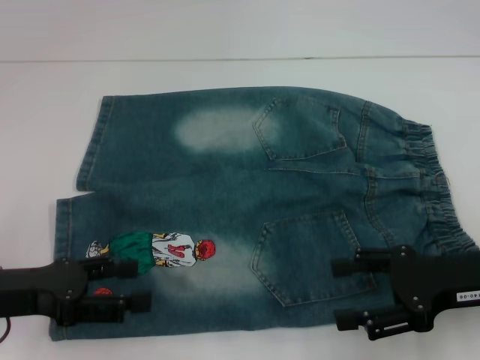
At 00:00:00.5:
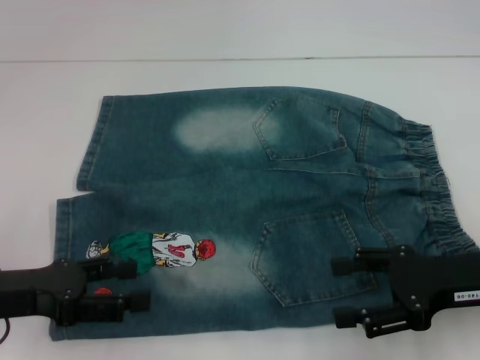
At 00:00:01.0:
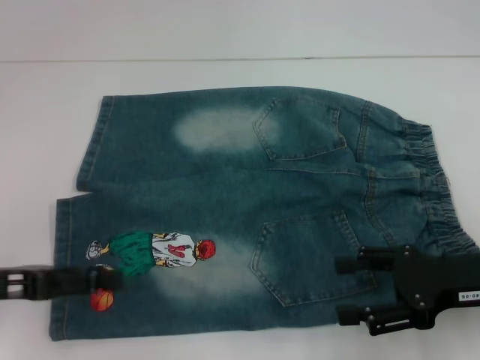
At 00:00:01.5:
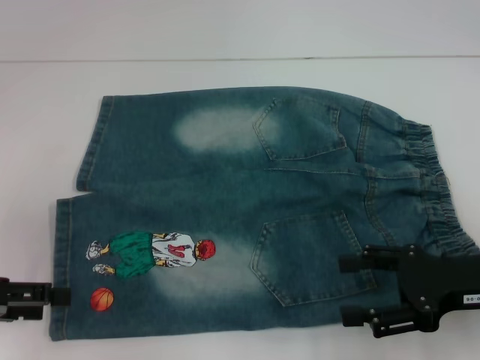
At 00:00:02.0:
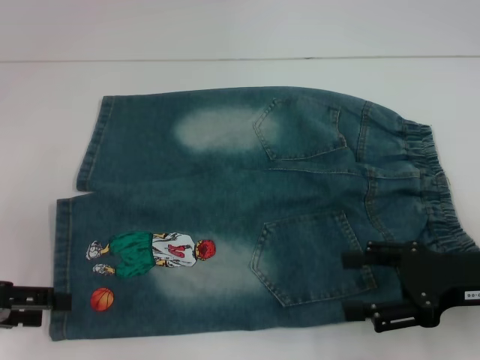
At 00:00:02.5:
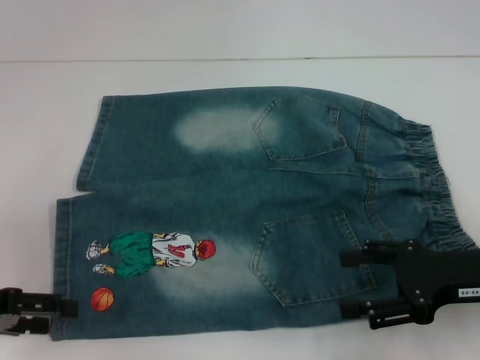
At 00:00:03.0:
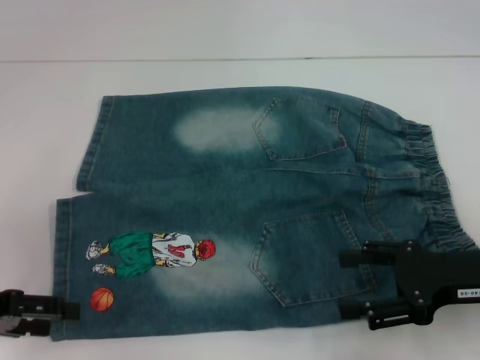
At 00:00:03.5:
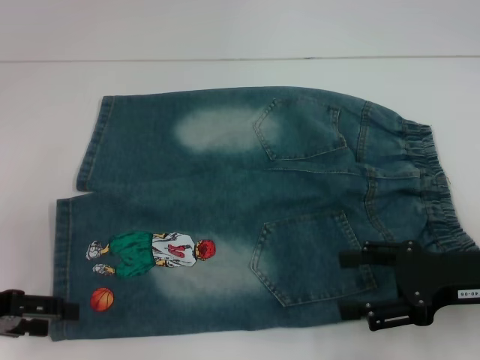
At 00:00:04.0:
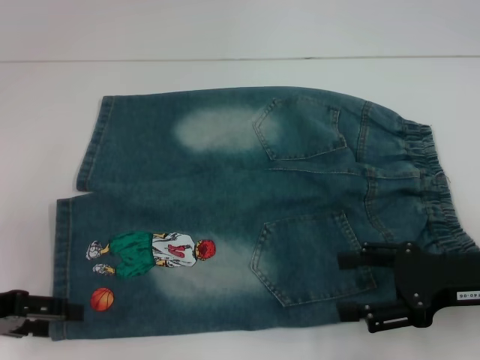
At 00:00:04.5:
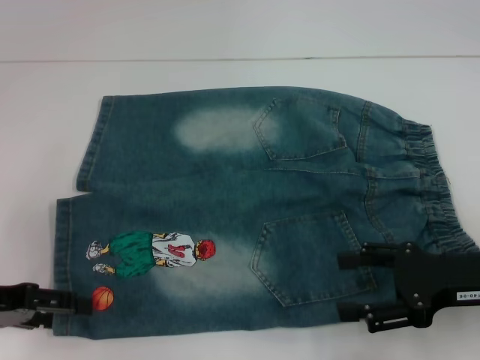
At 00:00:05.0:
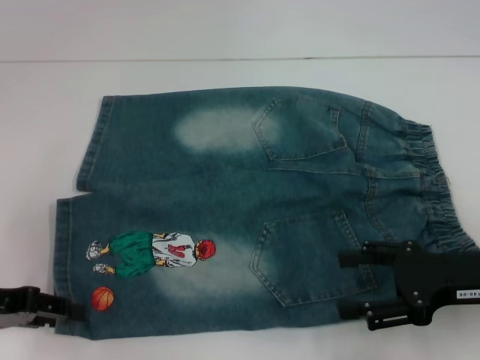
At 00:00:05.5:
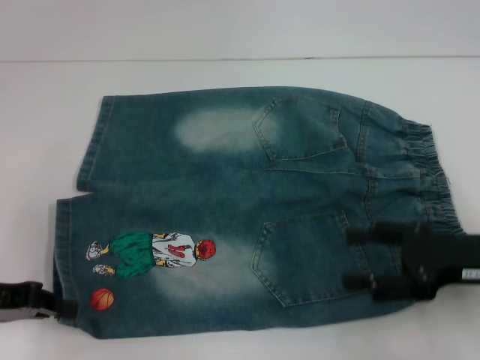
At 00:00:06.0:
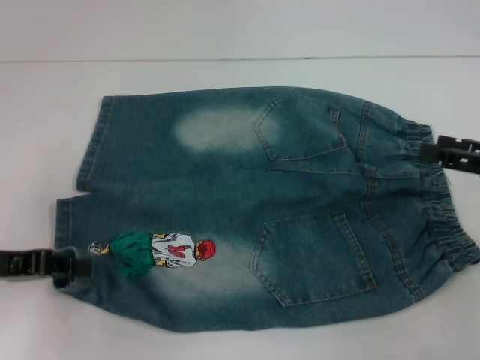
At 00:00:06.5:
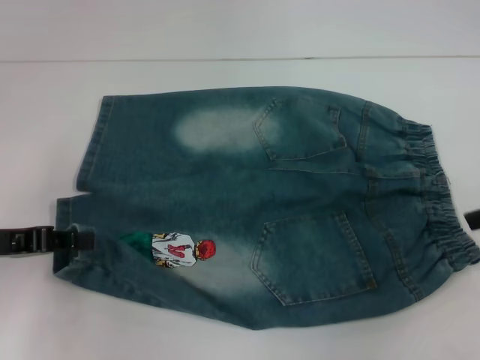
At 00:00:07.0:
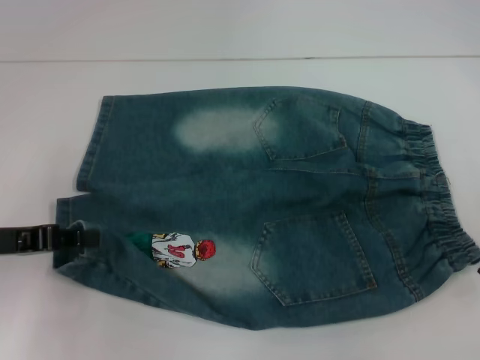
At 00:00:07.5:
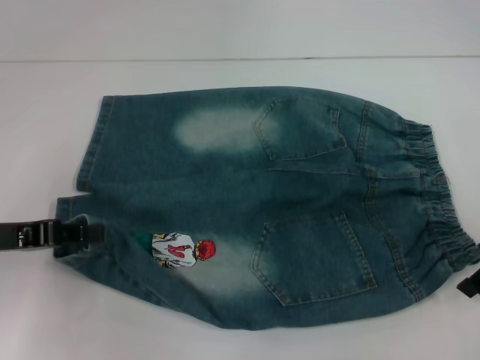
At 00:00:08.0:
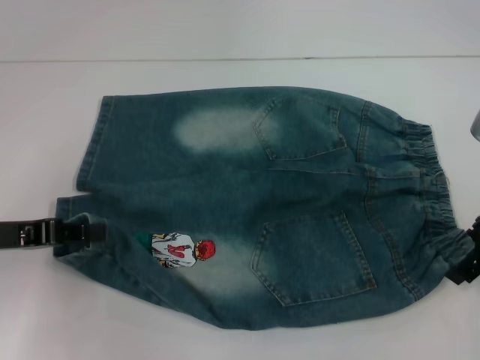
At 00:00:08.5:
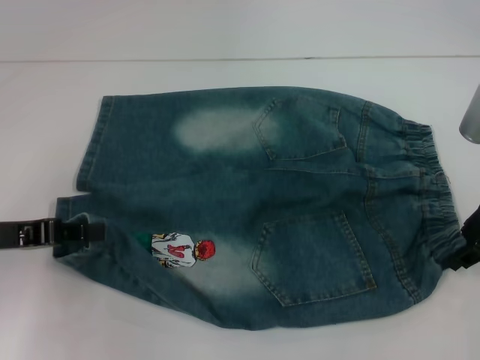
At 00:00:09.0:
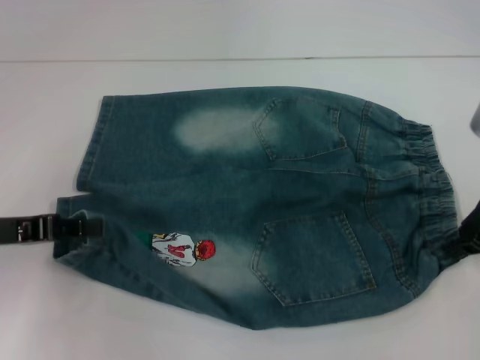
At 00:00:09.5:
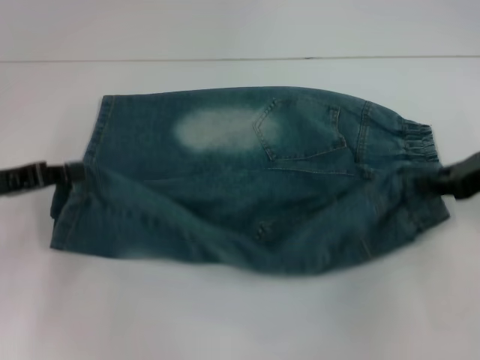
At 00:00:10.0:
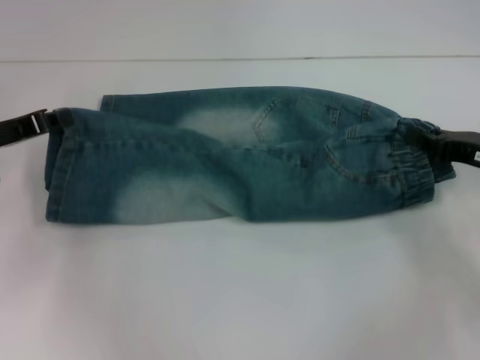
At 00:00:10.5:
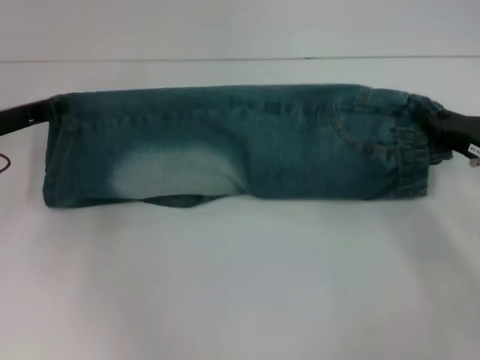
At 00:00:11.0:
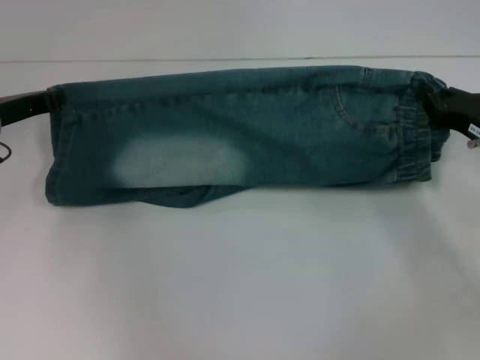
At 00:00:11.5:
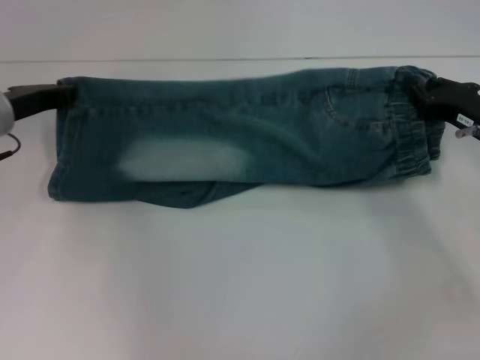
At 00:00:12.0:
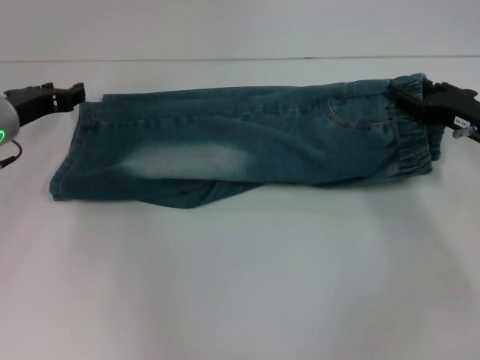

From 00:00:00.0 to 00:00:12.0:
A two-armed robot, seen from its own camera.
Step, from 00:00:00.0 to 00:00:05.0: Grab the lower left pant leg with your left hand.
Step, from 00:00:05.5 to 00:00:08.5: Hold the lower right waistband with your right hand.
Step, from 00:00:09.5 to 00:00:11.5: Fold upward with your left hand.
From 00:00:00.0 to 00:00:02.0: The left gripper heads to the left, covering roughly 5 cm.
From 00:00:02.0 to 00:00:04.0: The grippers move only a little.
From 00:00:04.0 to 00:00:06.0: The left gripper closes. The right gripper goes about 10 cm to the right.
From 00:00:06.0 to 00:00:08.0: The right gripper is displaced to the left by roughly 5 cm.
From 00:00:08.0 to 00:00:10.0: The right gripper shifts about 10 cm downward, and closes up. Meanwhile the left gripper heads forward, covering about 5 cm.
From 00:00:10.0 to 00:00:12.0: The left gripper ends up some 5 cm from where it was, and opens its fingers.

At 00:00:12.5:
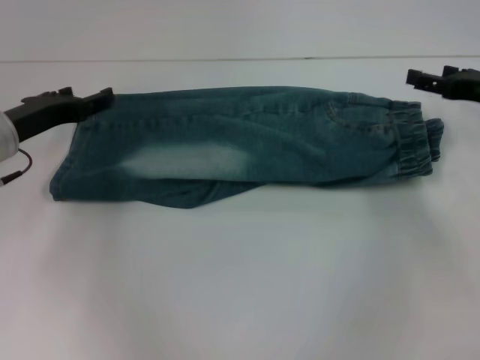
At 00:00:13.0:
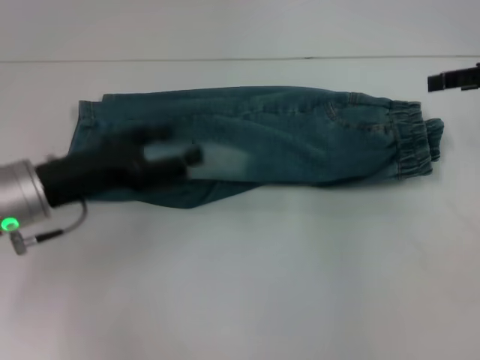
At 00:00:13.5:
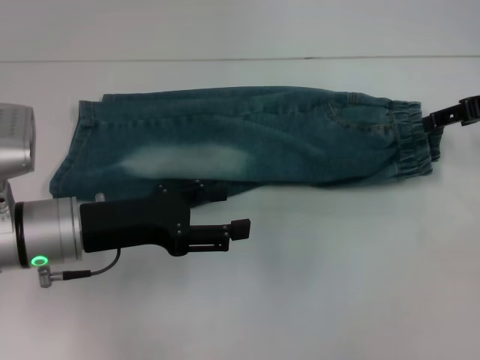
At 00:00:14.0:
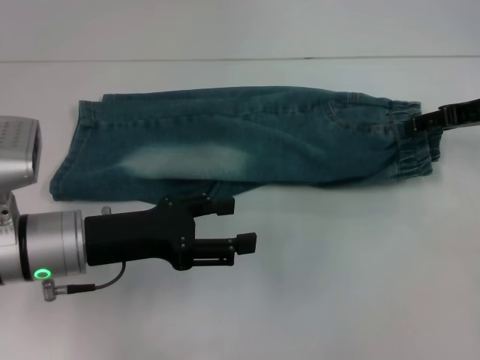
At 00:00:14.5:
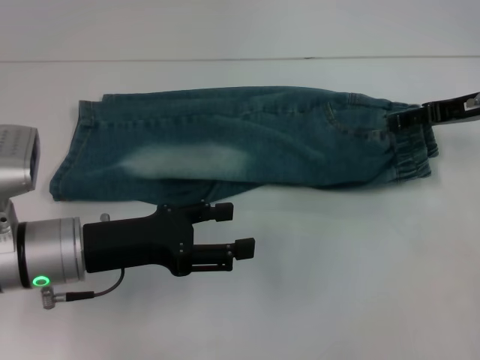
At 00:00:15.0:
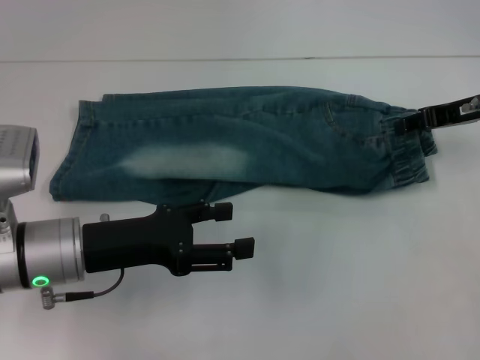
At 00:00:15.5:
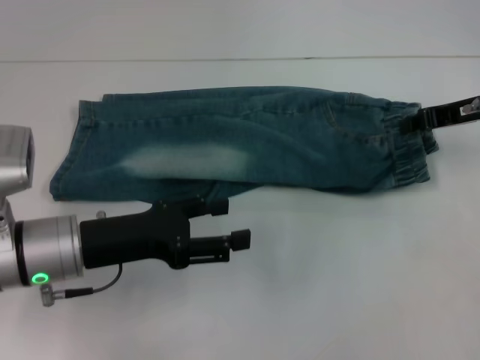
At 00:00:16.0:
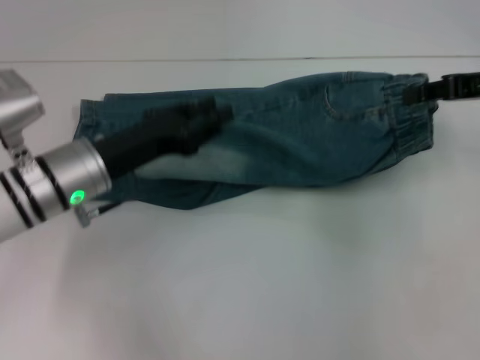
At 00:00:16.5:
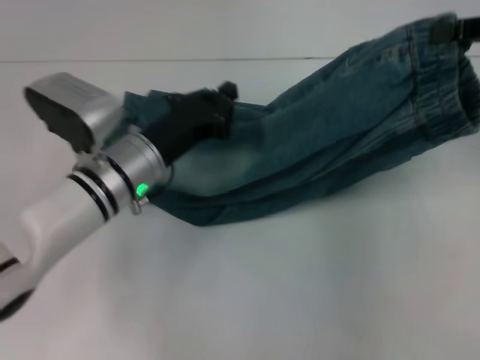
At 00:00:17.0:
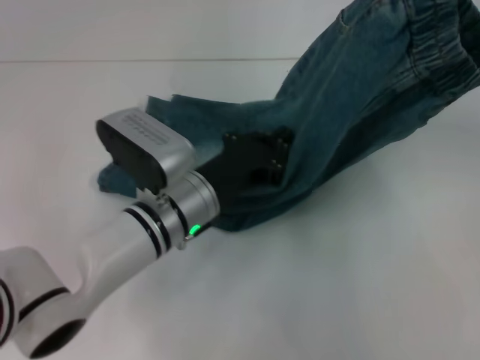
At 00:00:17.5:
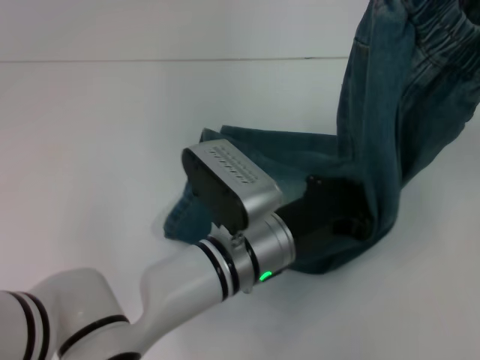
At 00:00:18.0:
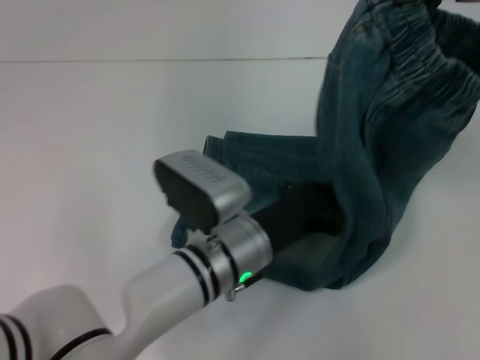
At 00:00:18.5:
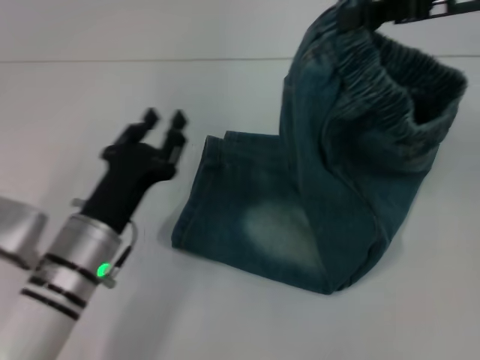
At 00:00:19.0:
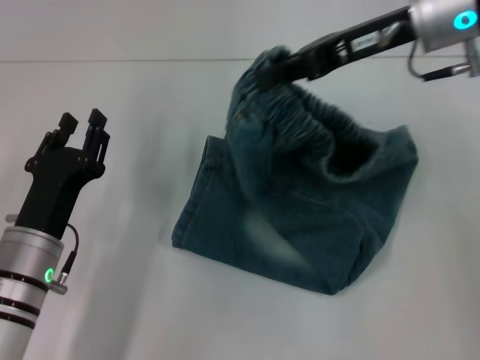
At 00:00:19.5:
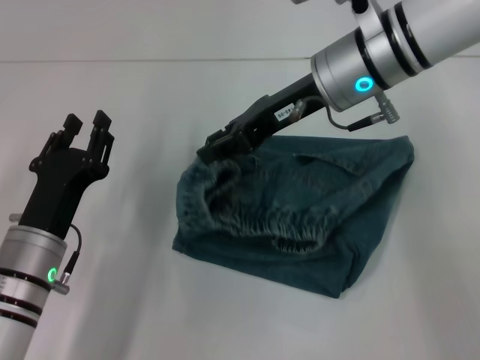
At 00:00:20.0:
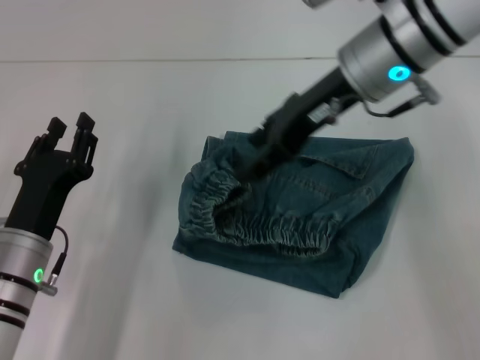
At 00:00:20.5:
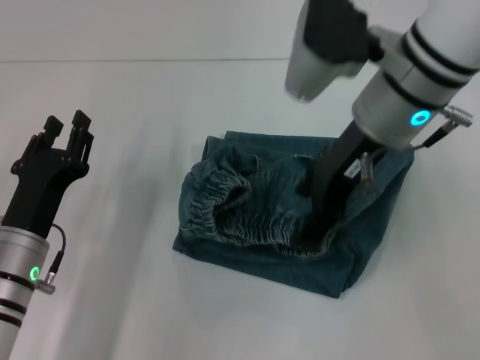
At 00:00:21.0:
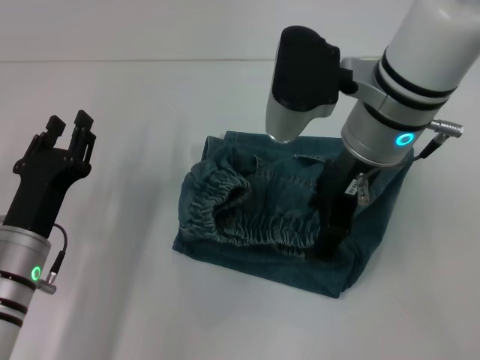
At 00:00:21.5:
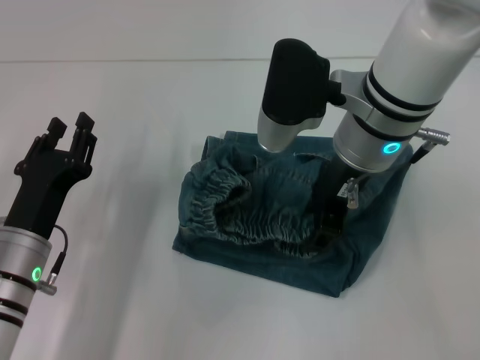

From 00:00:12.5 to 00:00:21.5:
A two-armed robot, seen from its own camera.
Step, from 00:00:12.5 to 00:00:15.5: Grab the waistband with your right hand.
Step, from 00:00:16.0 to 00:00:17.5: Press the middle of the pants with your left hand.
From 00:00:12.5 to 00:00:14.5: The left gripper travels backward and to the right by about 10 cm.
From 00:00:14.5 to 00:00:17.0: The right gripper goes about 15 cm upward, and closes; the left gripper heads to the right, covering roughly 10 cm, and closes its fingers.
From 00:00:17.0 to 00:00:19.5: The left gripper is displaced to the left and backward by roughly 15 cm, and opens, while the right gripper moves to the left and downward, approximately 25 cm.
From 00:00:19.5 to 00:00:21.5: The right gripper opens up.

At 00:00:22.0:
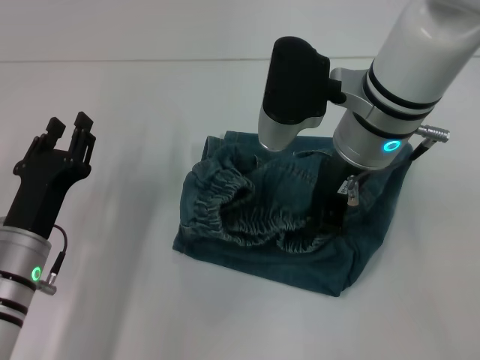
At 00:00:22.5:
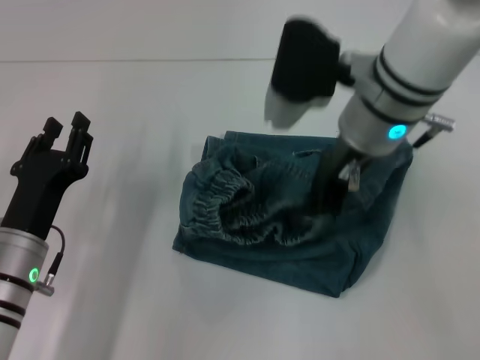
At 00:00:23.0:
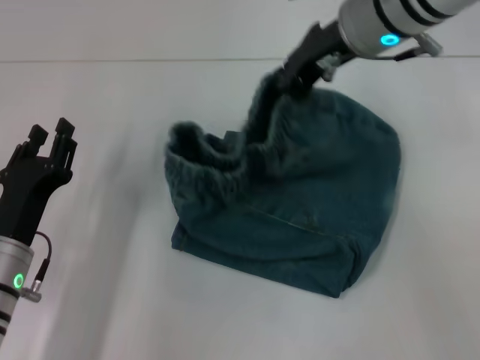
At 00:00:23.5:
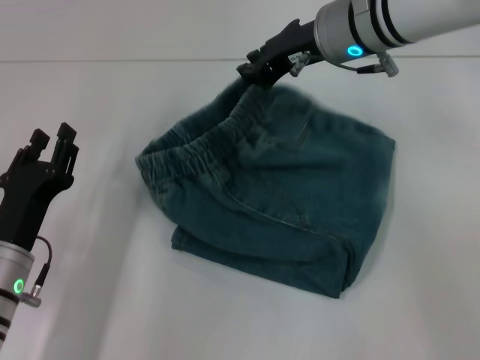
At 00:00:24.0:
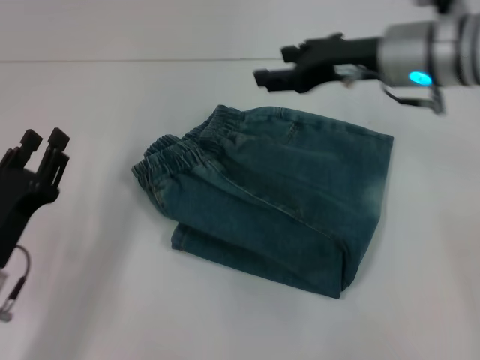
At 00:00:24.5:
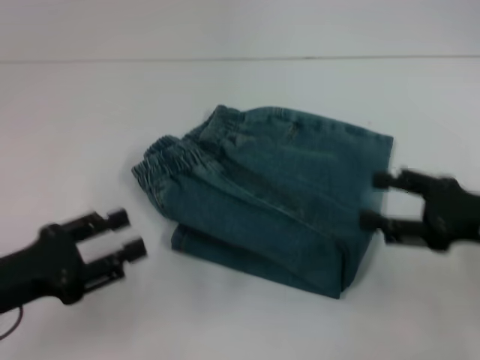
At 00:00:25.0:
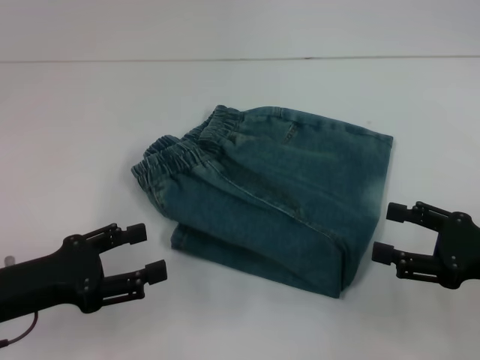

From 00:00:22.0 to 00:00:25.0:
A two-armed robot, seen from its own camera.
From 00:00:22.0 to 00:00:23.5: The right gripper shifts about 5 cm forward.
From 00:00:23.5 to 00:00:25.0: The right gripper moves backward, to the right and downward, some 30 cm, and opens. The left gripper shifts roughly 5 cm upward.
